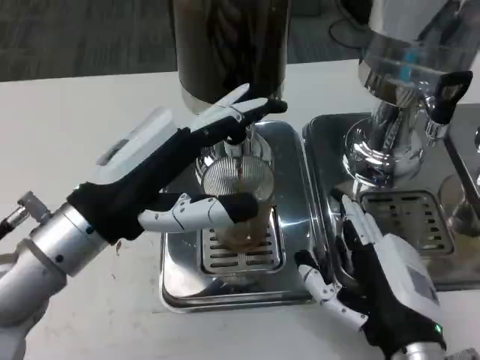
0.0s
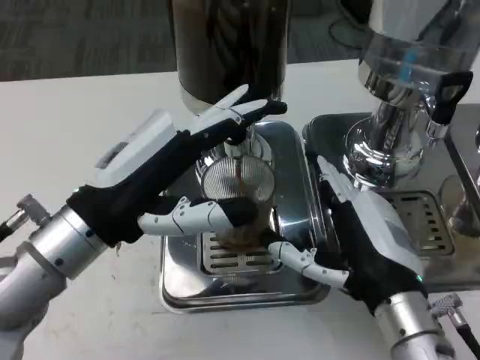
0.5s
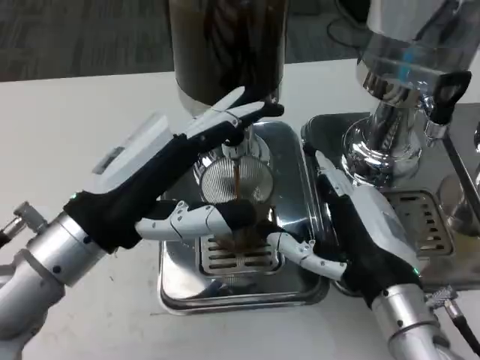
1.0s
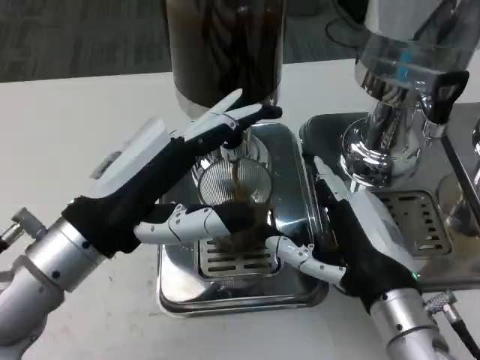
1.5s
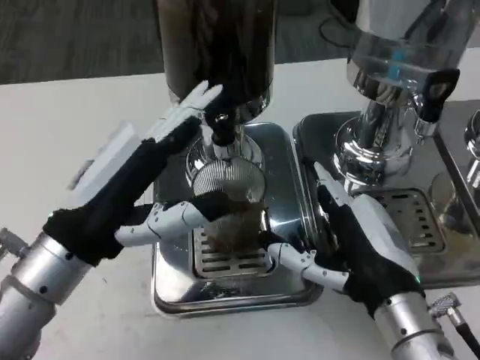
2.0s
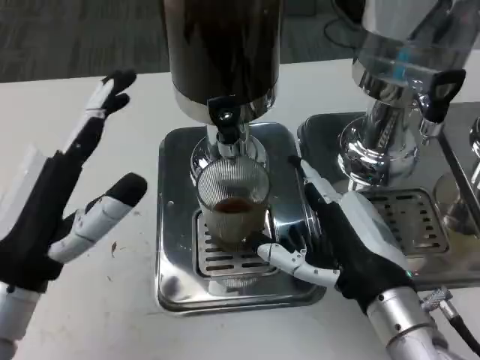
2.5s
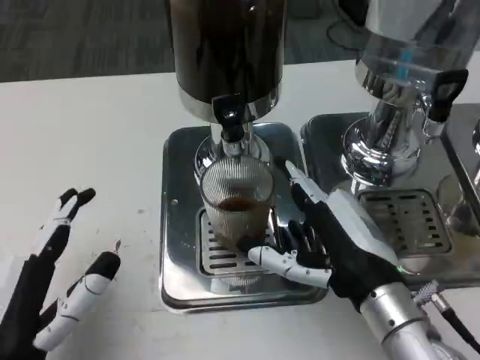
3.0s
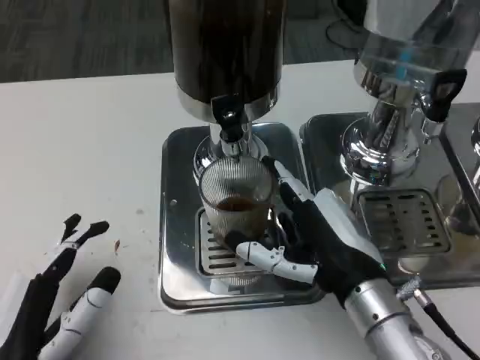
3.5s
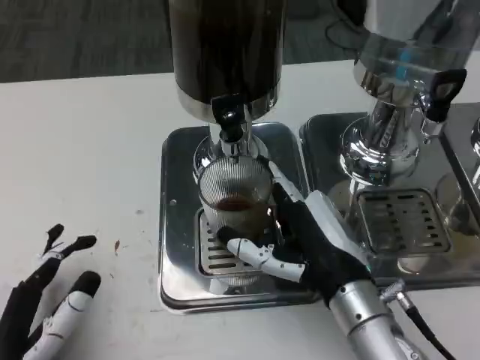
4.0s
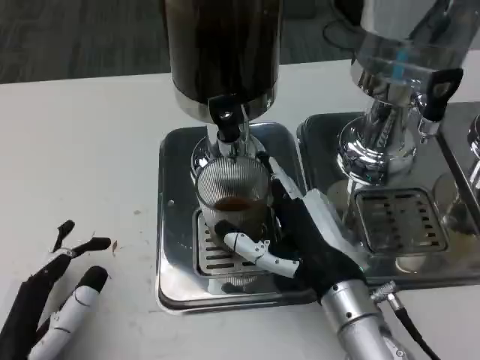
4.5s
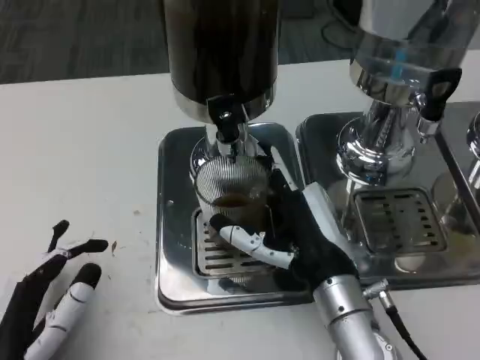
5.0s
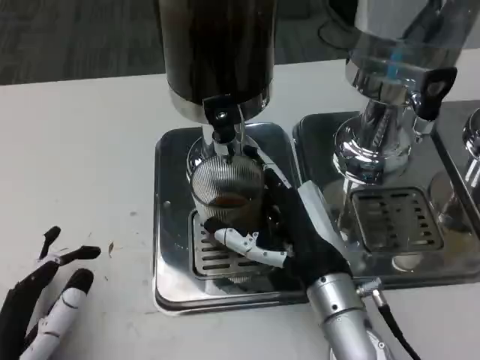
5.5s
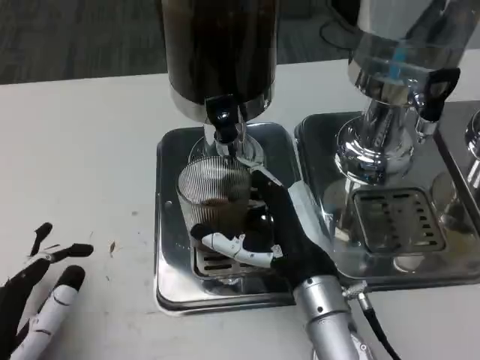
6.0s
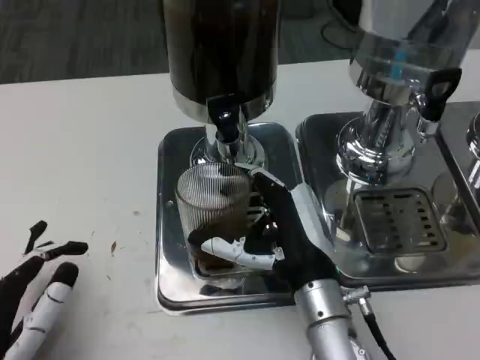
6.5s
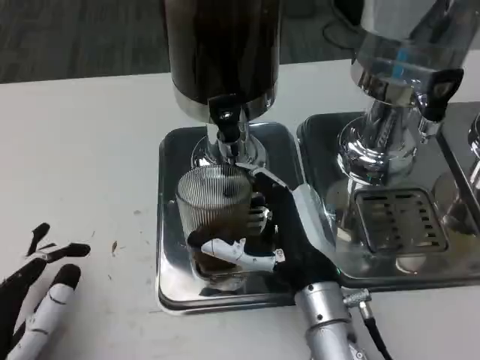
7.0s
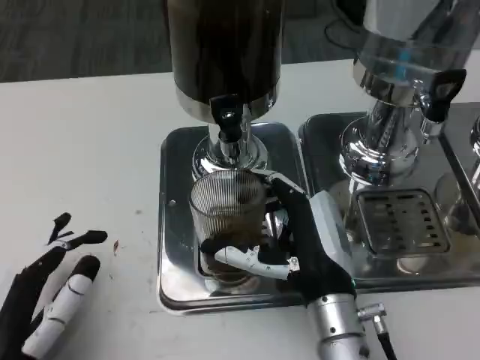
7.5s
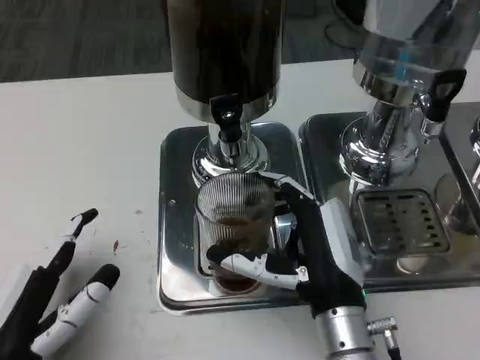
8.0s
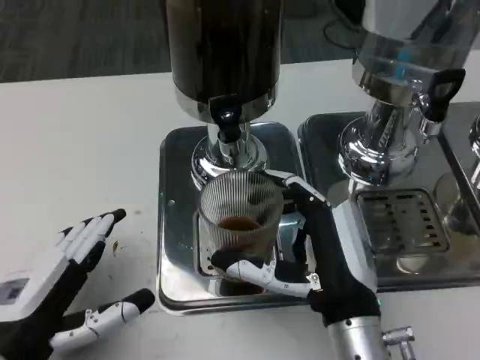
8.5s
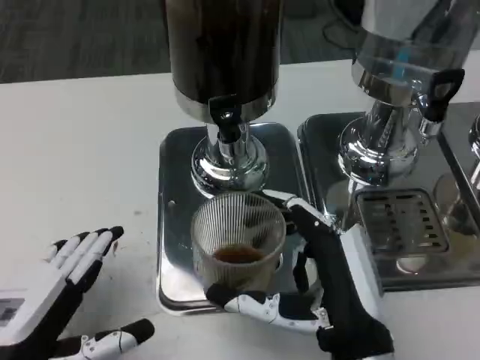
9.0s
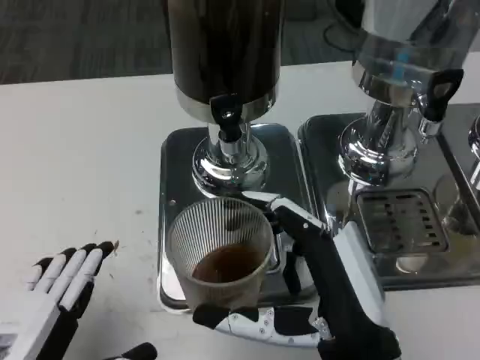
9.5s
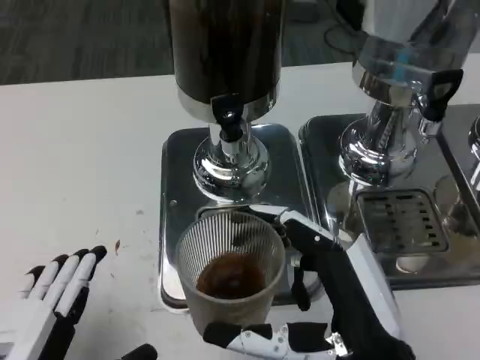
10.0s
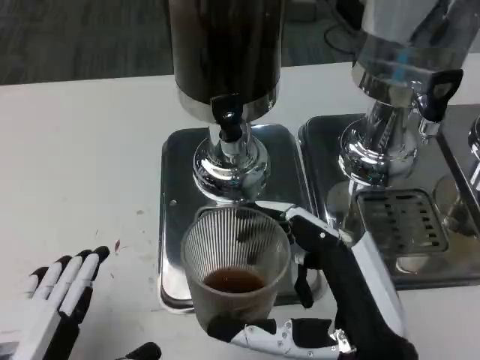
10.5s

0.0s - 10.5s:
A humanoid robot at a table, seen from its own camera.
Task of the whole recording: Grasp the cup under the faucet to collect the drink, then remove the cup.
2.0s - 4.0s: The left hand shifts approximately 15 cm backward and downward.
4.0s - 6.5s: The right hand moves about 5 cm.
8.5s - 10.5s: The hands both shift backward by approximately 5 cm.

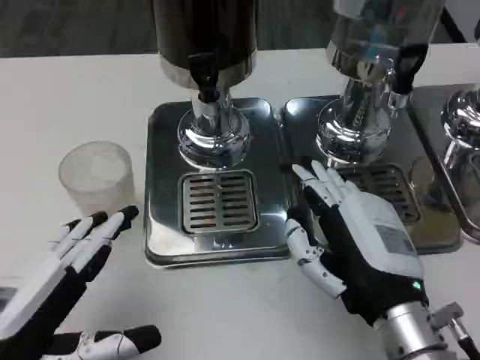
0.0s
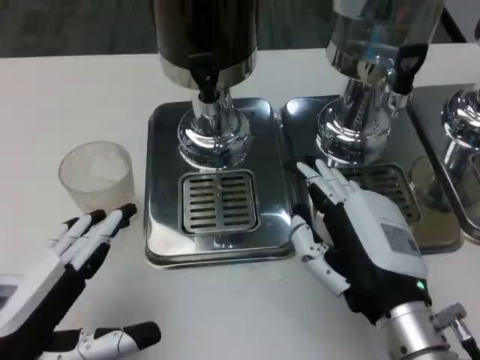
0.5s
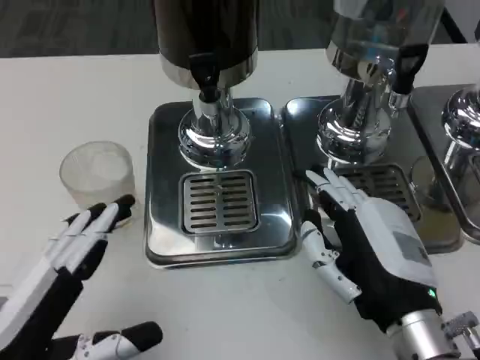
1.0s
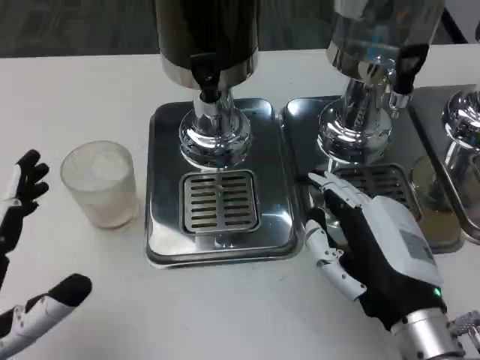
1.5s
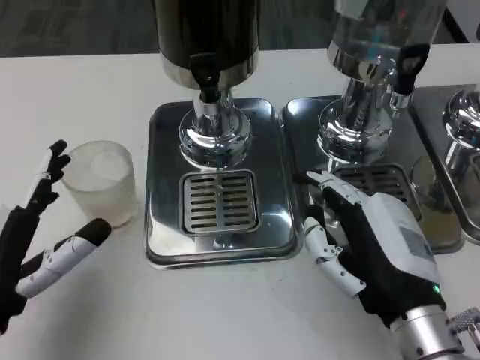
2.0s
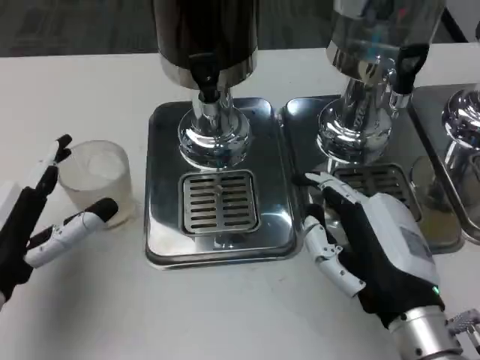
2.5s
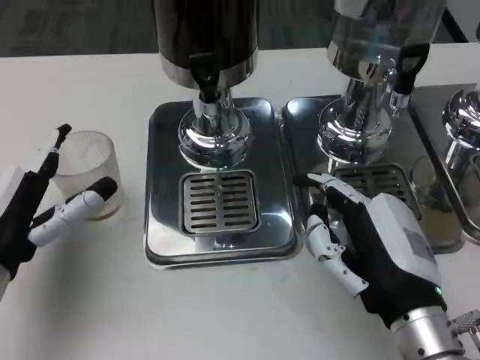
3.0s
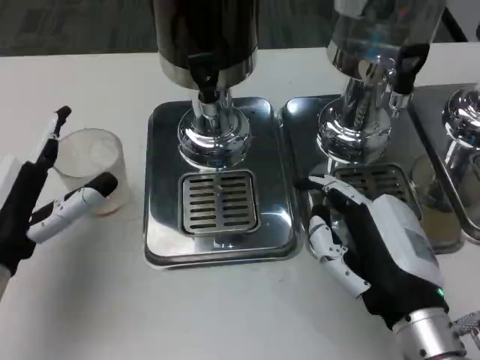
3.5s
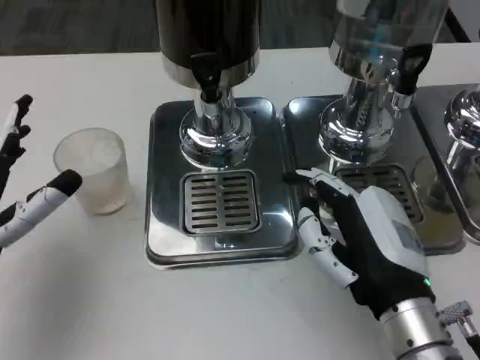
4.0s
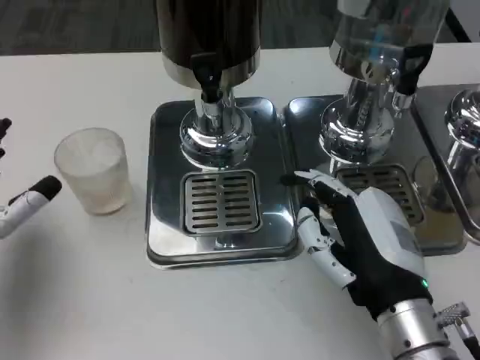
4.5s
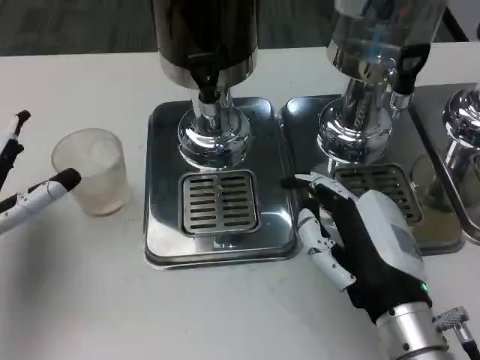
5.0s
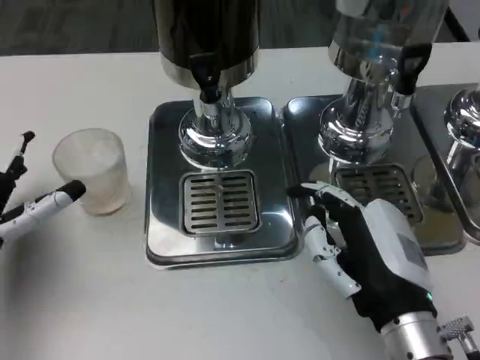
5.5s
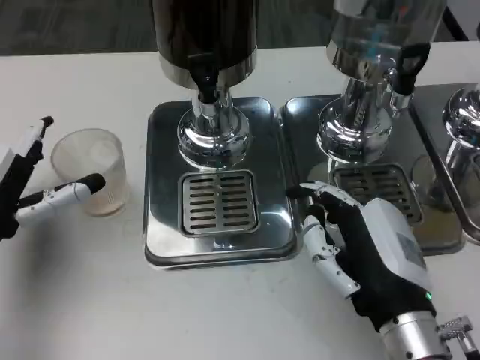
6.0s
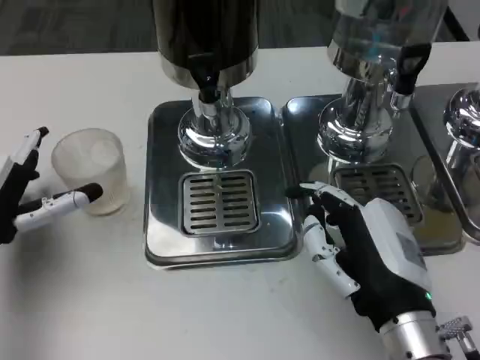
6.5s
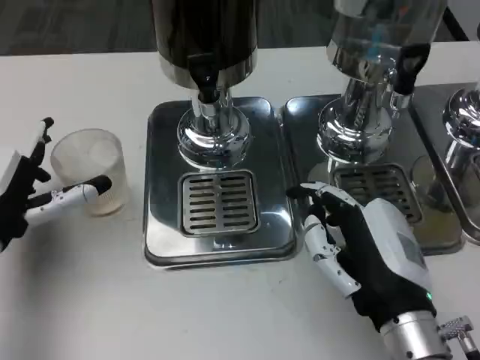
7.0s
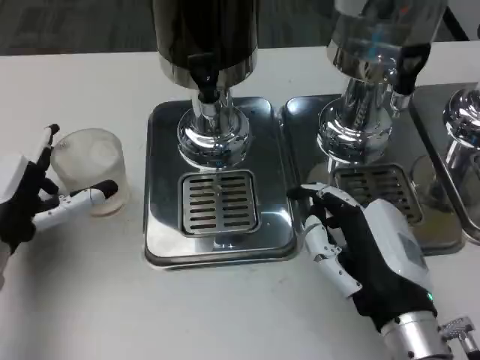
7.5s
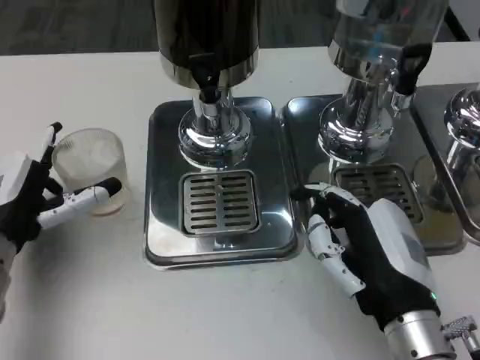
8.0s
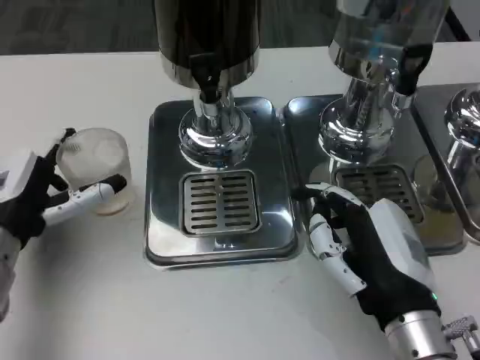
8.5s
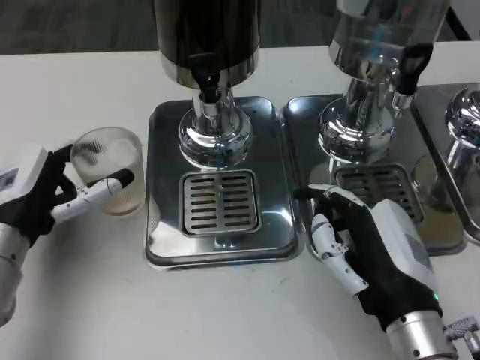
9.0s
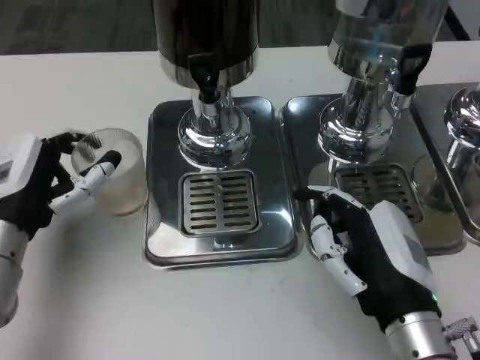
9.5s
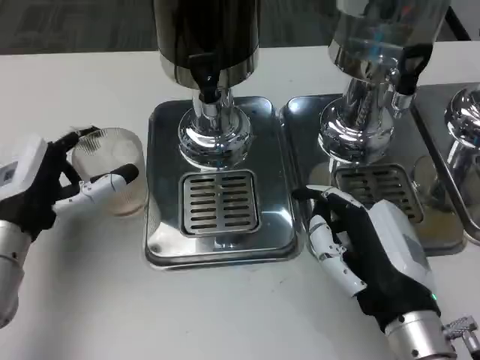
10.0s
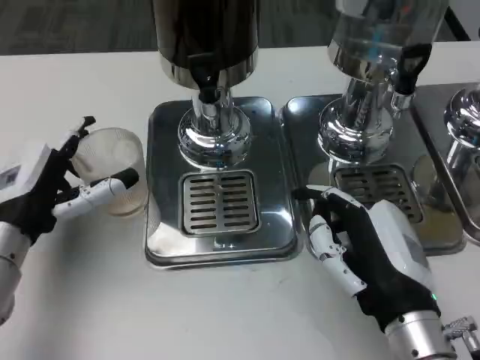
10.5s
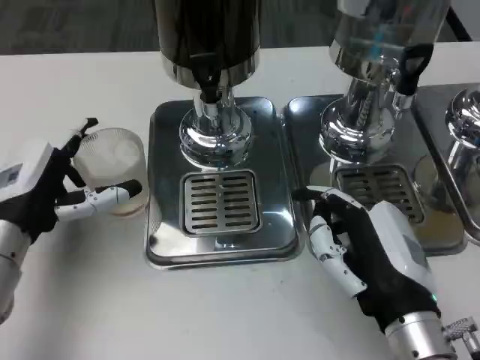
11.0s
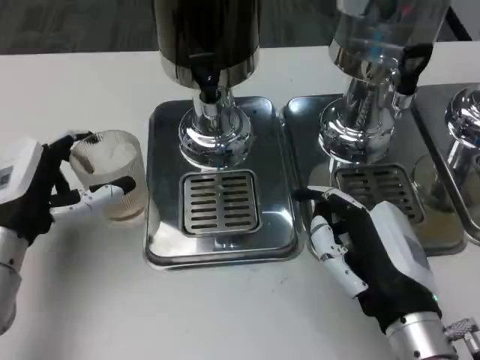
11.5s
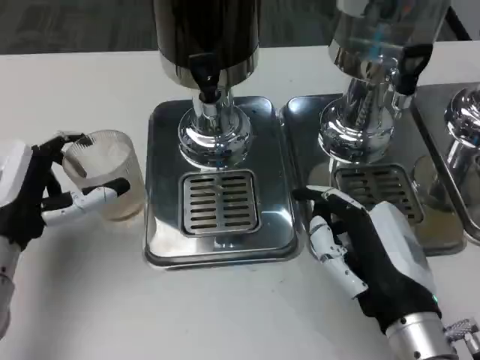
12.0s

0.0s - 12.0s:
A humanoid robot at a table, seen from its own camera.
Task of the whole recording: Grasp the cup under the faucet to collect the drink, then remove the cup.
0.0s - 2.0s: The left hand moves approximately 5 cm.
2.0s - 4.0s: There are only small adjustments of the hands.
4.0s - 6.0s: The left hand shifts approximately 5 cm forward.
6.0s - 12.0s: The hands make only small movements.

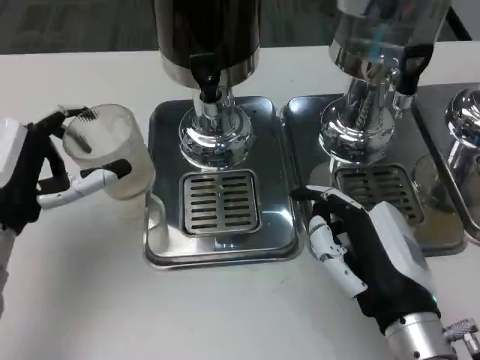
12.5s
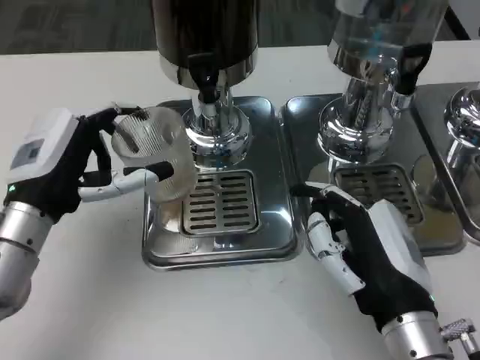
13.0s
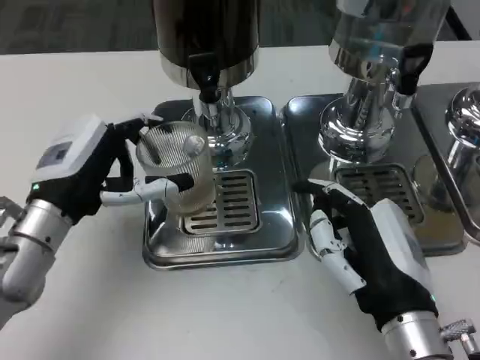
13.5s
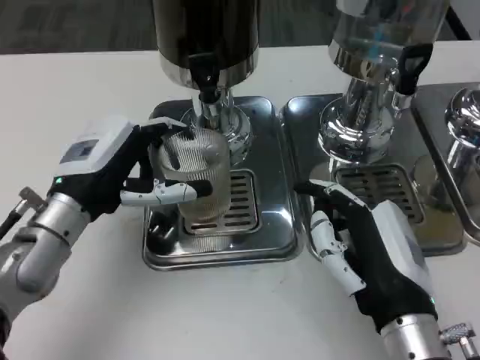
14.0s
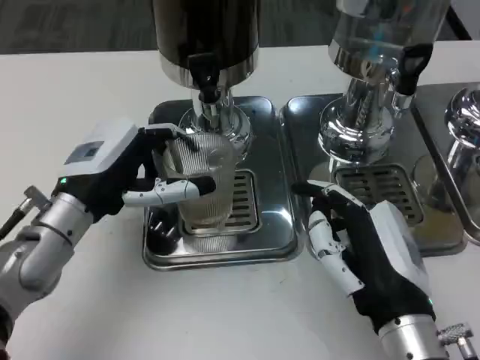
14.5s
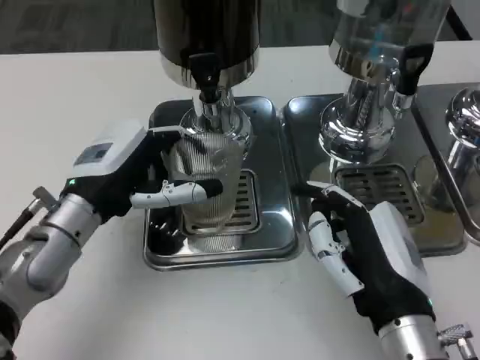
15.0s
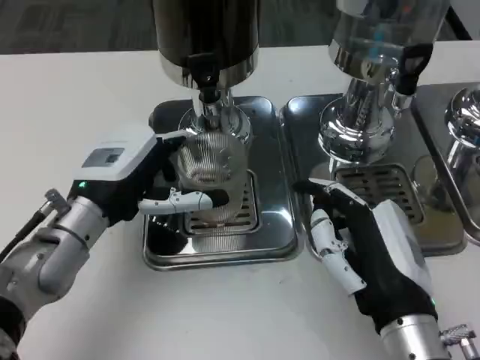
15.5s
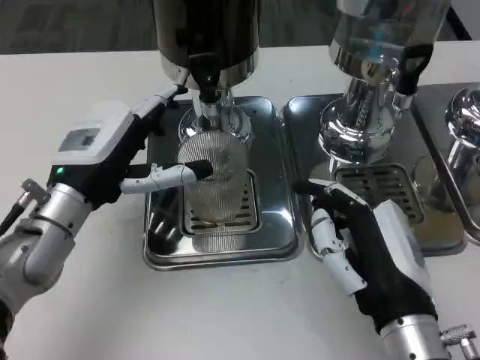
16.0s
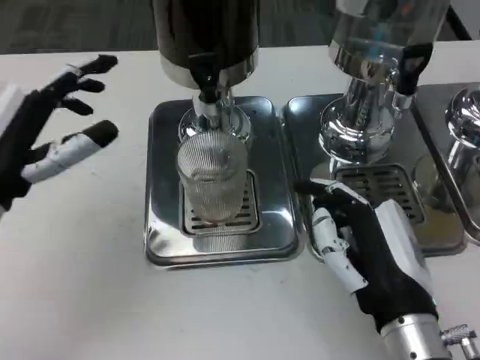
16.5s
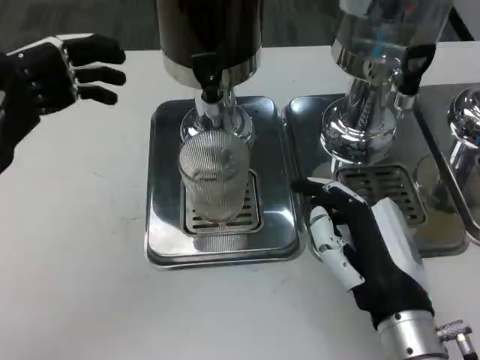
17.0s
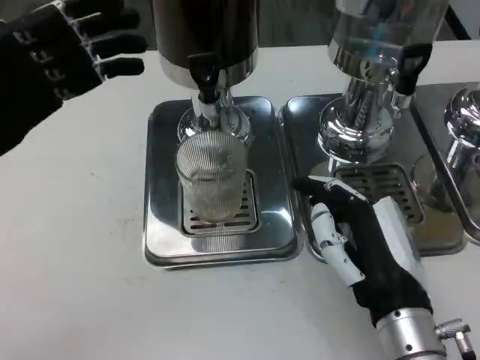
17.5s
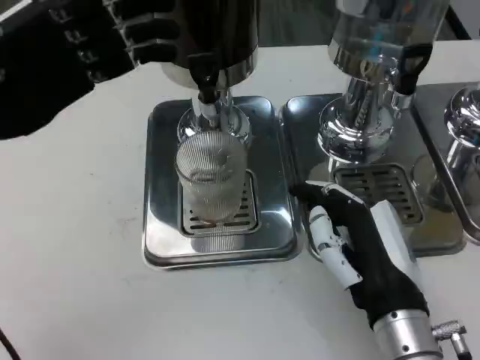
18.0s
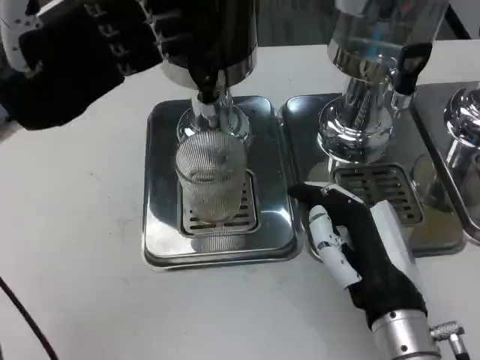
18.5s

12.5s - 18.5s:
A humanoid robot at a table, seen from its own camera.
Task of the whole recording: Grasp the cup under the faucet to collect the drink, then remove the cup.
12.5s - 14.5s: The left hand moves roughly 5 cm.
14.5s - 16.5s: The left hand goes approximately 5 cm to the left.
16.5s - 18.5s: The left hand goes roughly 10 cm upward and forward.
